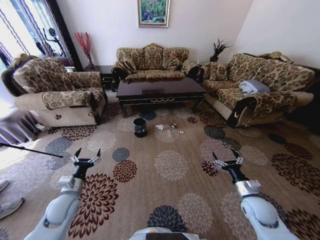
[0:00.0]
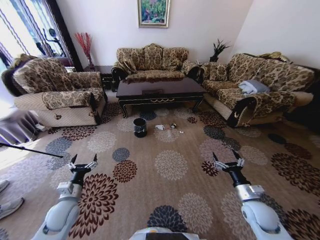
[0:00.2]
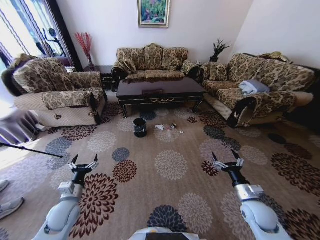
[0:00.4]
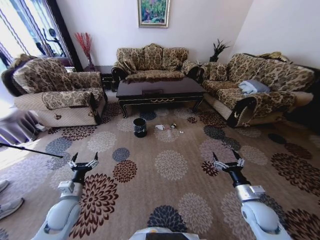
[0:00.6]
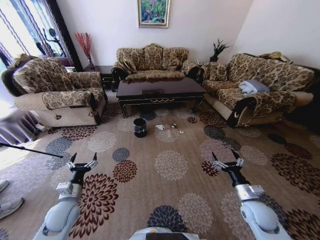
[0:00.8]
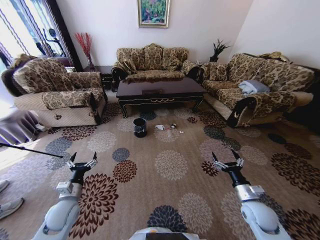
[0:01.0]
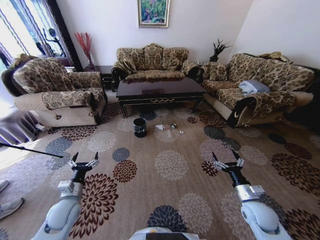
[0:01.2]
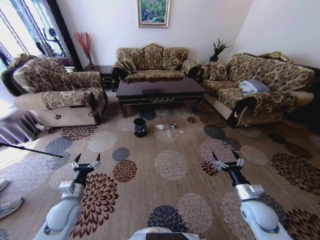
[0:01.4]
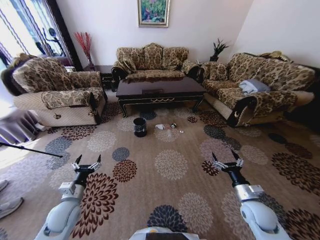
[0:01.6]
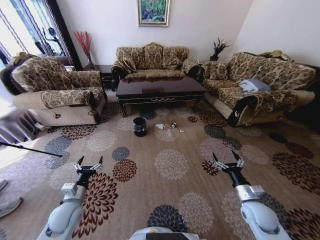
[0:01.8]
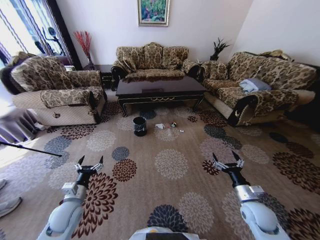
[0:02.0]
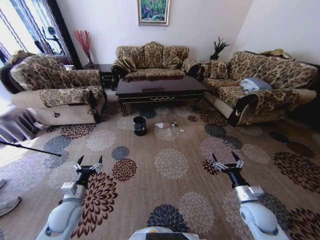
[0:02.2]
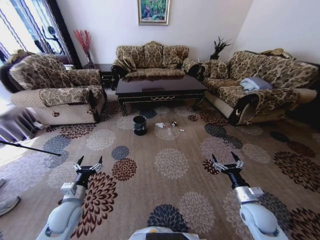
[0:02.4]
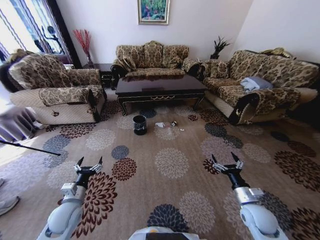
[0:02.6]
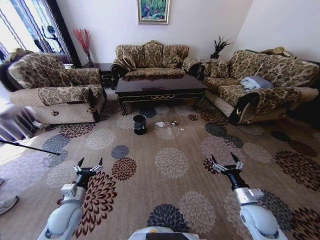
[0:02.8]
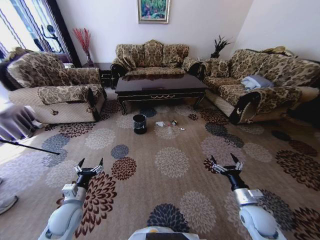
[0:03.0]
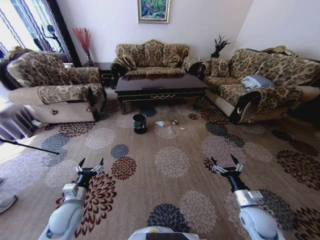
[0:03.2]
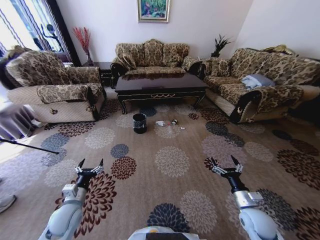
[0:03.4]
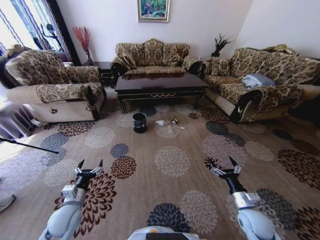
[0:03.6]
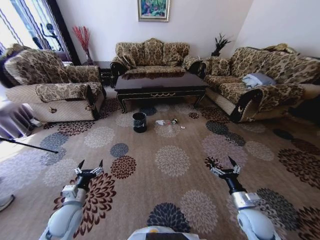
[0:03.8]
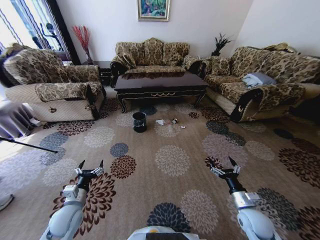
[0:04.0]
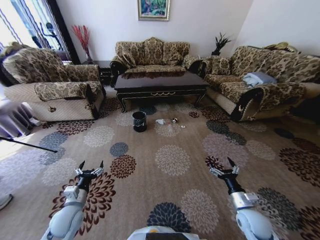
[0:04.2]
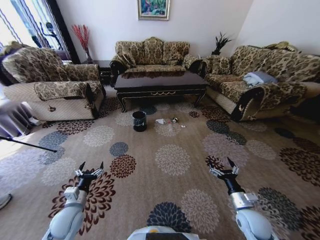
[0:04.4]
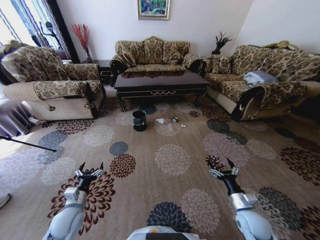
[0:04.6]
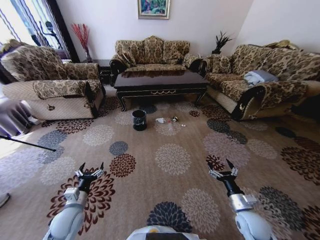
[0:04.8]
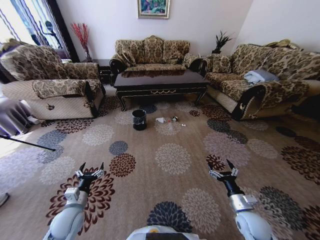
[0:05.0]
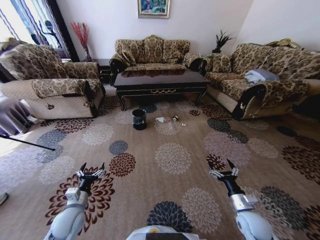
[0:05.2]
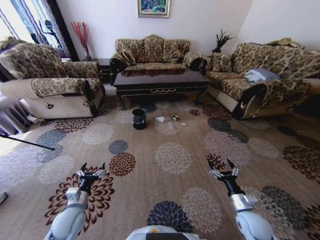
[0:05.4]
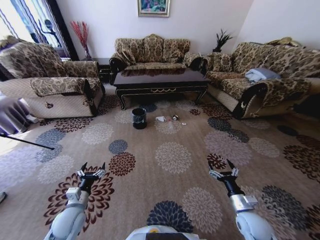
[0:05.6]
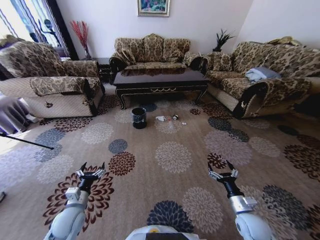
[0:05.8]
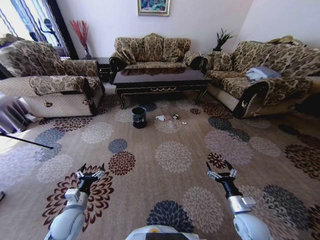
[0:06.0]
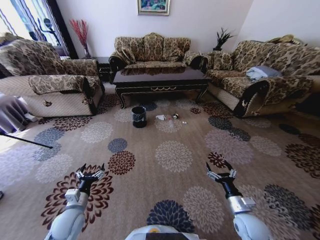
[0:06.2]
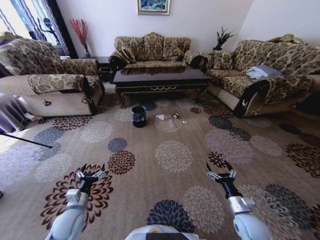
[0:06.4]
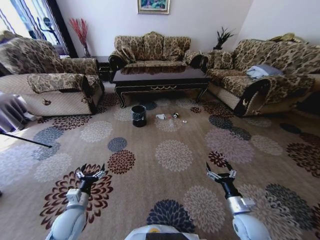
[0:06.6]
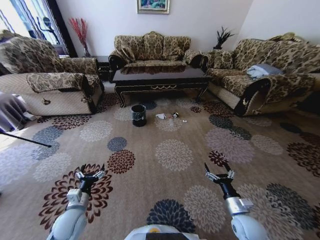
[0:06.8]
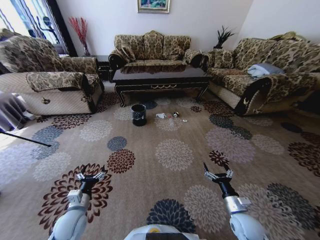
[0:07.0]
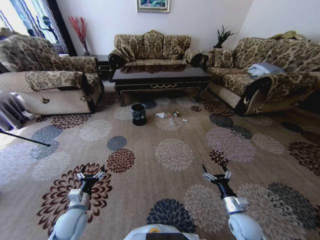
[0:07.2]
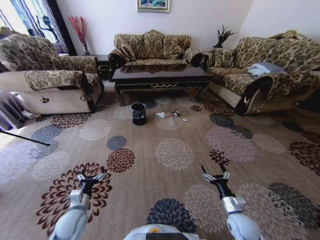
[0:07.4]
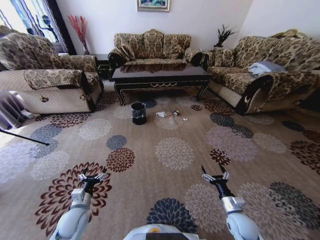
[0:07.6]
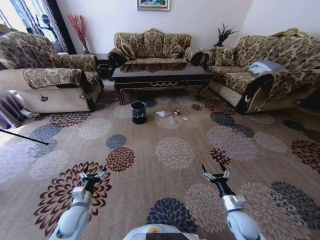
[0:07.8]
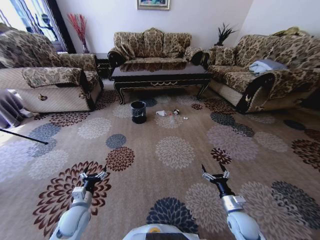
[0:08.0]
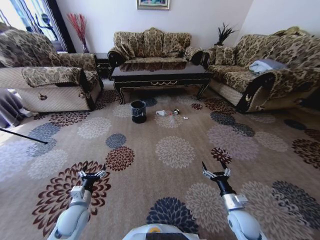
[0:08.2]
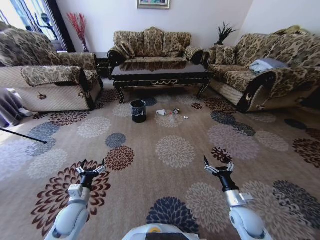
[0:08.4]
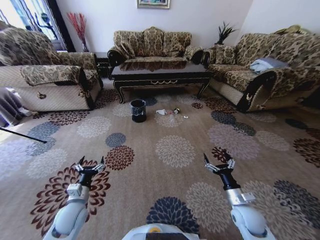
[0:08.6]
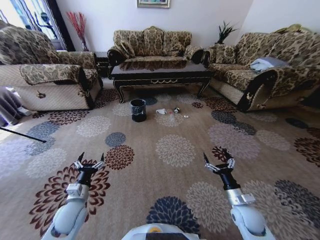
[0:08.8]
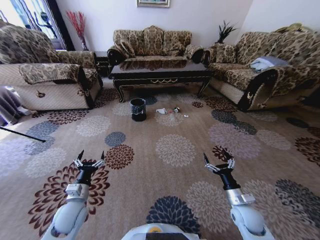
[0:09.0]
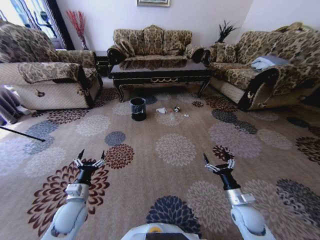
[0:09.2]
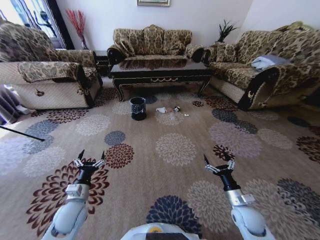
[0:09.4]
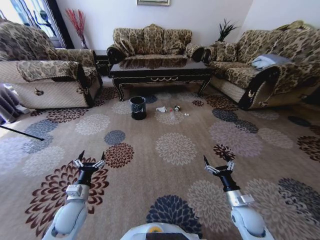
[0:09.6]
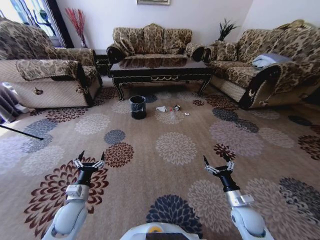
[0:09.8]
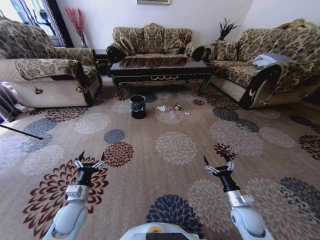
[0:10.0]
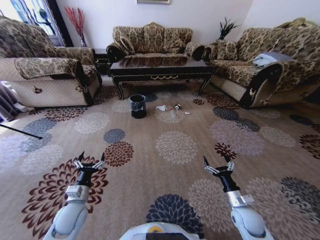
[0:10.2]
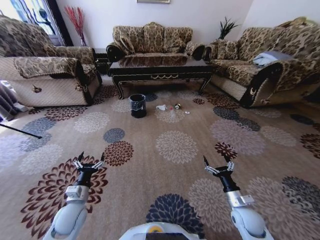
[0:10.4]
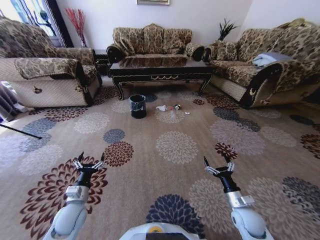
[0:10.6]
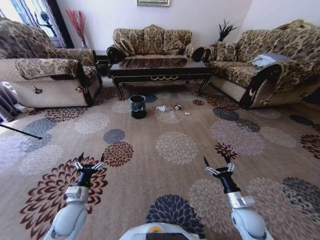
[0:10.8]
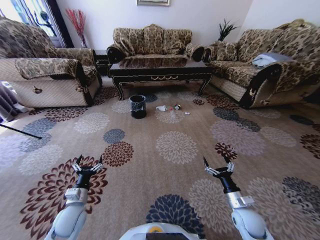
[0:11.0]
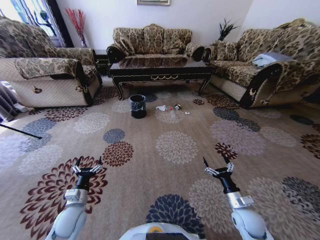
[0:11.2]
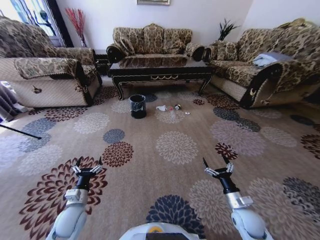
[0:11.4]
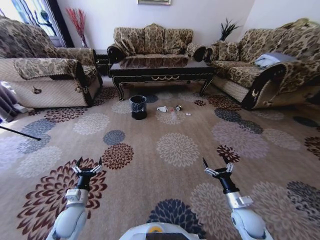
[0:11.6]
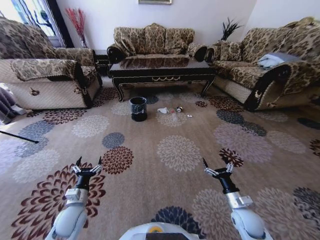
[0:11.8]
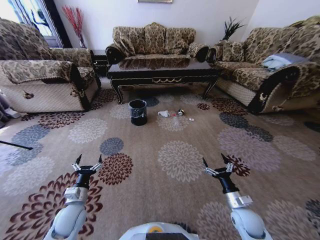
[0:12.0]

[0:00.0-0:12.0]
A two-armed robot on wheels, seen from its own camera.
Task of the whole recording: Move to the front of the table and pick up the trash from the floor, then place it into the trash bin.
0:07.6 to 0:09.0: The left gripper heads upward, covering about 5 cm.

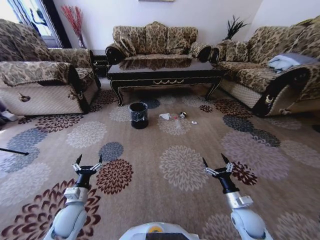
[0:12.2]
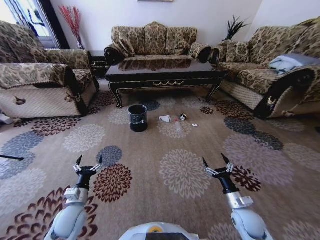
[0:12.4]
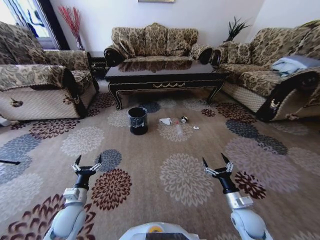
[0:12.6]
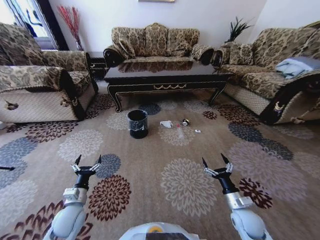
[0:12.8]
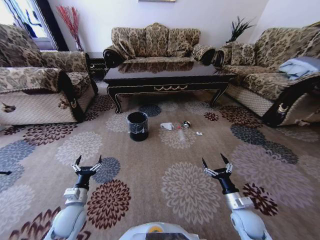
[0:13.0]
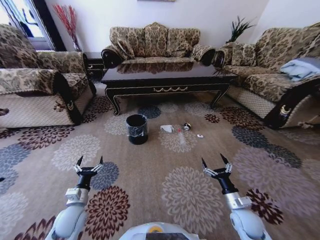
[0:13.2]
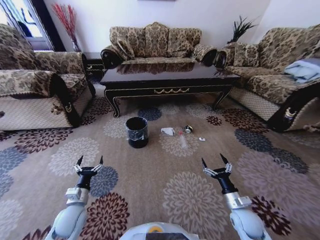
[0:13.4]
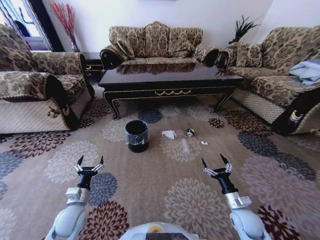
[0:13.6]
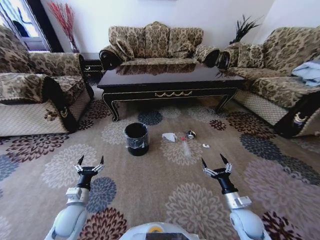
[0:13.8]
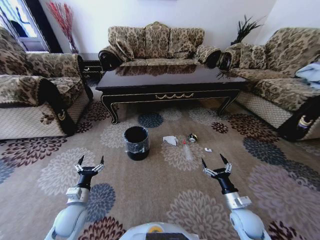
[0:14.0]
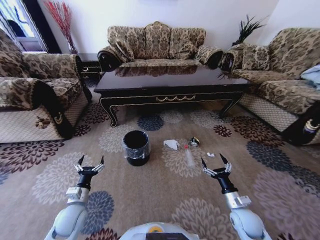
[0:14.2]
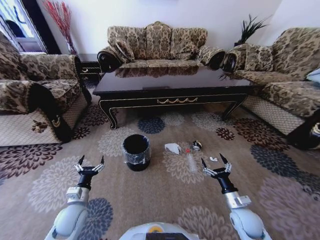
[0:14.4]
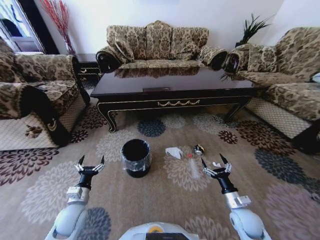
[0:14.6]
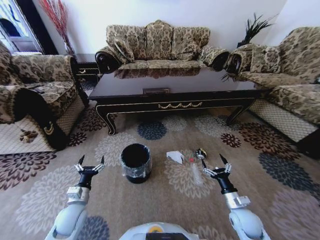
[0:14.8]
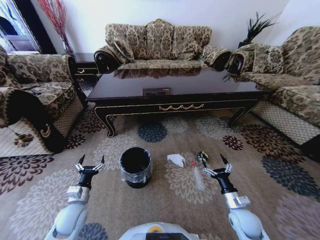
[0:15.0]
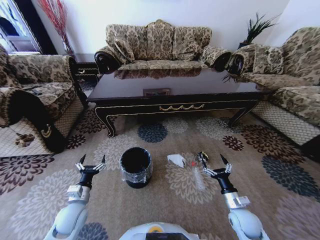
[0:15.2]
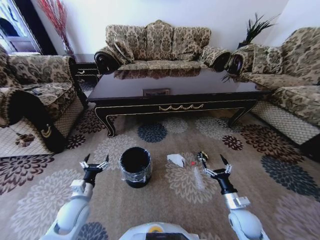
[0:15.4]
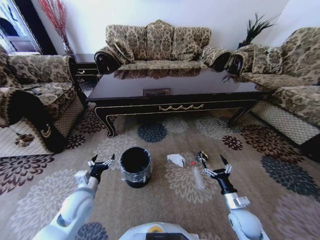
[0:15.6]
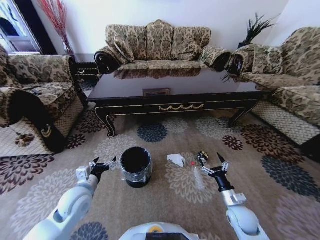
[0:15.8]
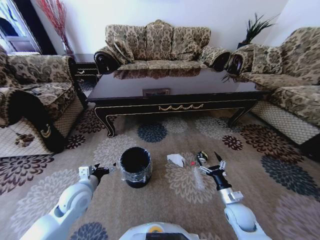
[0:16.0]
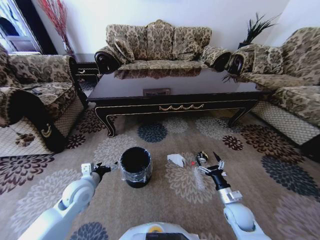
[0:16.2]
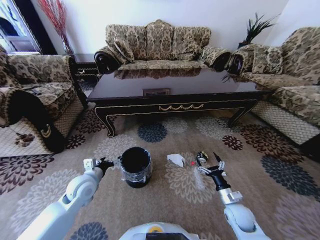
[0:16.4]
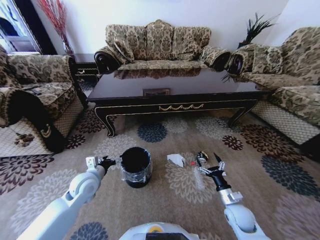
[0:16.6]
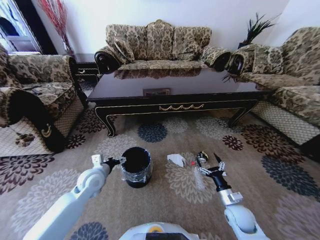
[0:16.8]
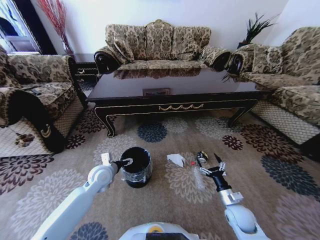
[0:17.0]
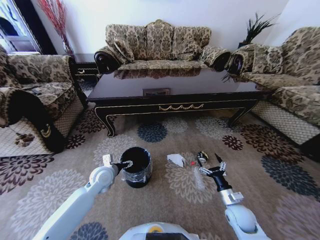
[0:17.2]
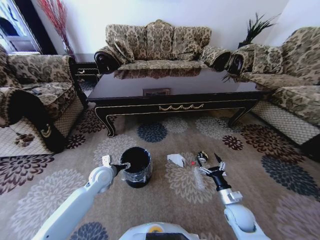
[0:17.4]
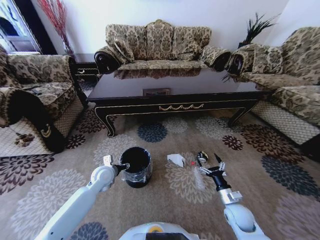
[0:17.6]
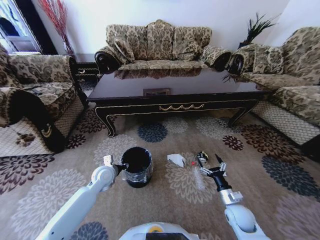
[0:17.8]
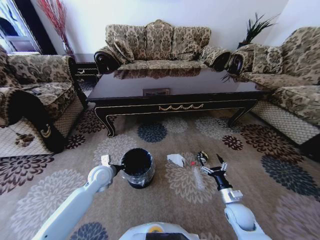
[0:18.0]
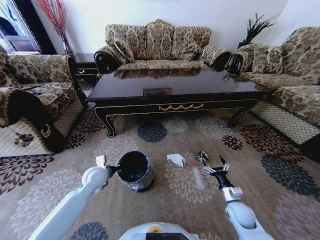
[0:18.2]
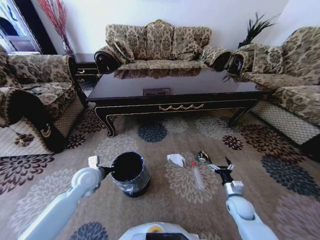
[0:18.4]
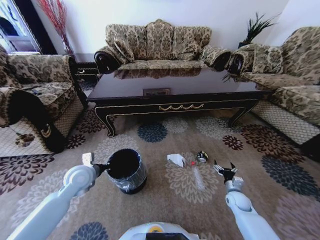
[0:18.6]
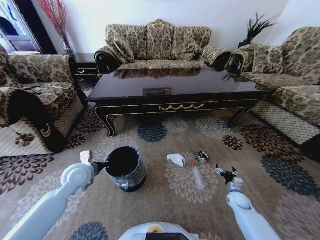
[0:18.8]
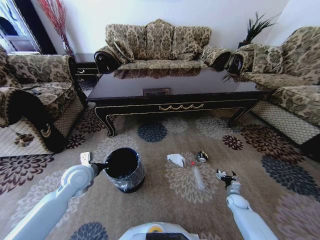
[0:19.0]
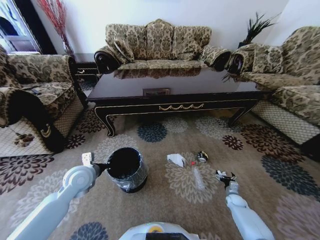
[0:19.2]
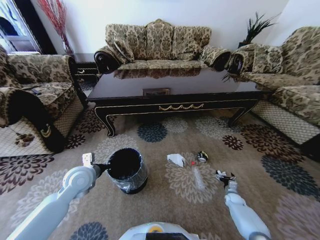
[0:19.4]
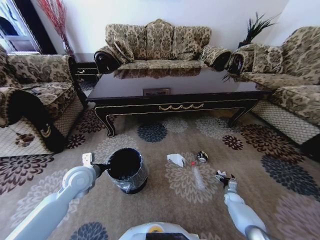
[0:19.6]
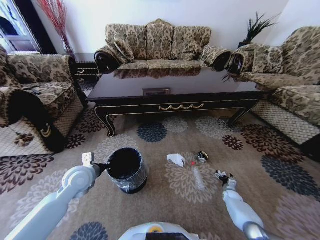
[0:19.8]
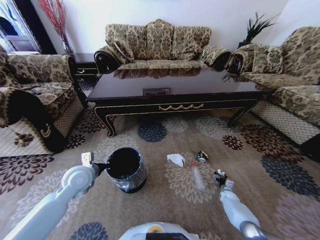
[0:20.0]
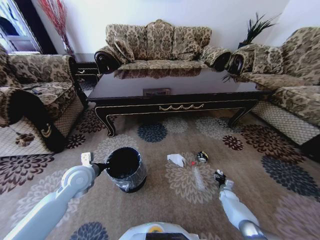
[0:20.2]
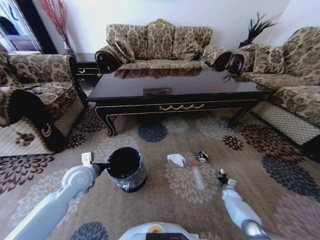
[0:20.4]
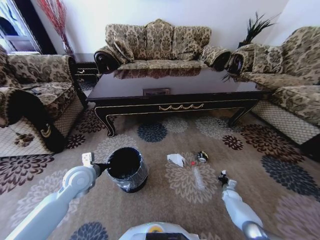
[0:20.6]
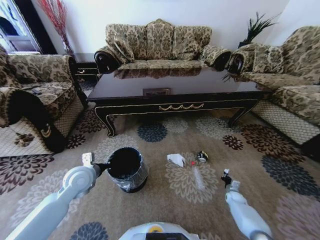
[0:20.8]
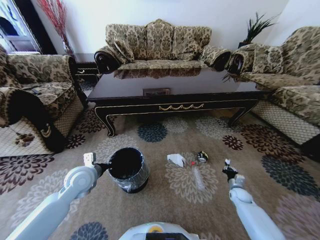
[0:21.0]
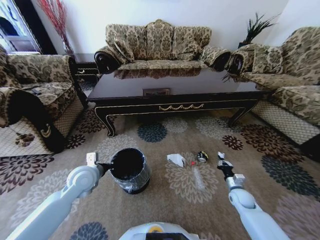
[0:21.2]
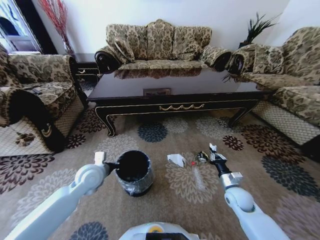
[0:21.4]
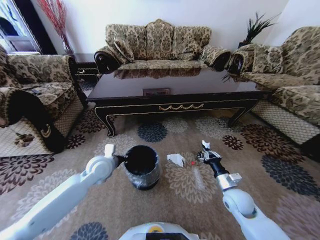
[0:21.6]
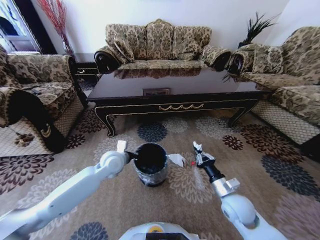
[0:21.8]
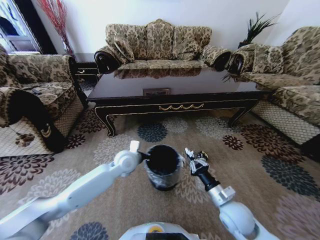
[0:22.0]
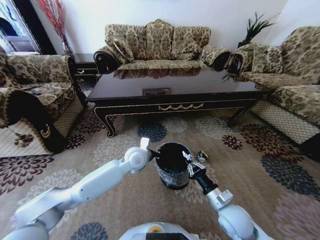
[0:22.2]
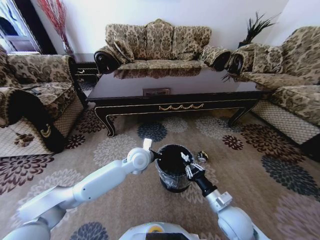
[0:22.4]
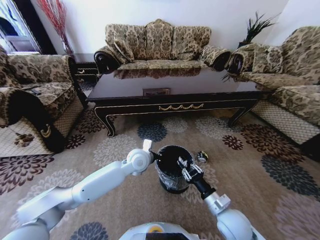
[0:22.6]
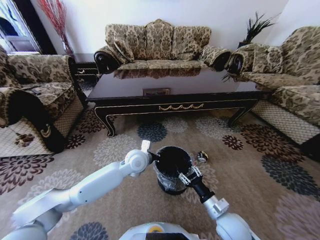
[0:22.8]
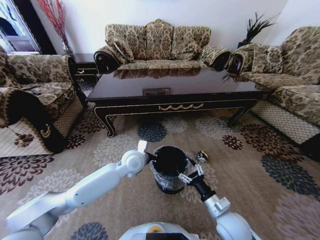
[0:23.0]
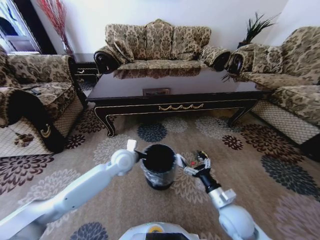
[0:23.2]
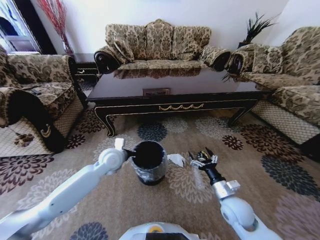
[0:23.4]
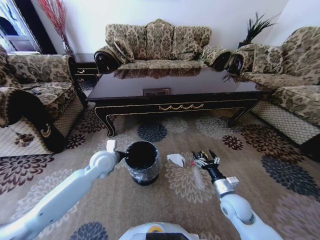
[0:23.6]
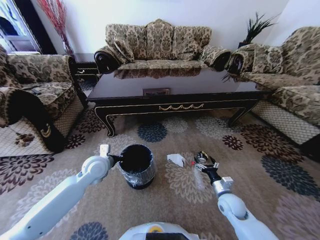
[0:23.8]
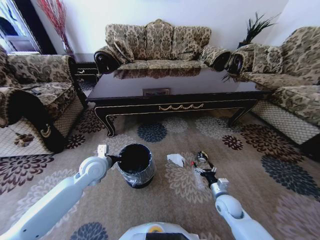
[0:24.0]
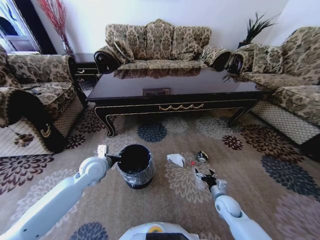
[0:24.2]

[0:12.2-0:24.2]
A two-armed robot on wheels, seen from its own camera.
Task of the whole recording: Move to the front of the table and pick up the trash from the floor, then place it into the trash bin.
0:15.2 to 0:16.6: The left gripper travels forward and upward by roughly 10 cm.
0:16.6 to 0:18.2: The left gripper closes up.
0:18.2 to 0:19.8: The right gripper shifts approximately 25 cm downward, to the right and forward. The left gripper moves upward, roughly 5 cm.
0:19.8 to 0:21.2: The right gripper moves upward and to the left, about 15 cm, and closes.
0:21.2 to 0:22.6: The right gripper heads to the left, backward and upward, covering about 25 cm, while the left gripper goes roughly 20 cm to the right.
0:22.6 to 0:24.2: The right gripper moves downward, to the right and forward, some 15 cm, and opens up; the left gripper travels to the left by about 20 cm.
